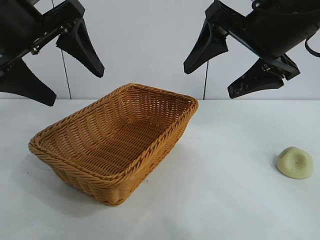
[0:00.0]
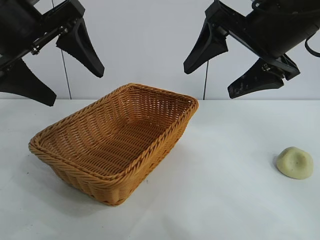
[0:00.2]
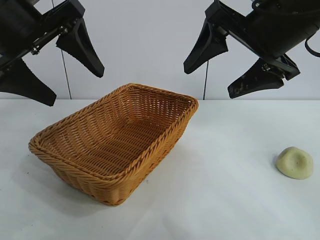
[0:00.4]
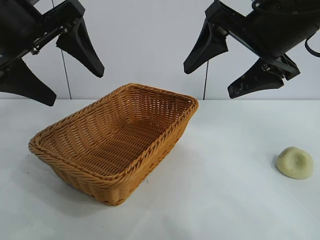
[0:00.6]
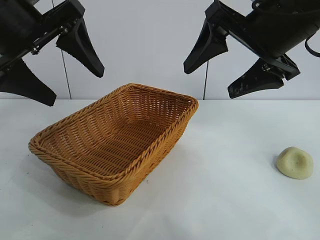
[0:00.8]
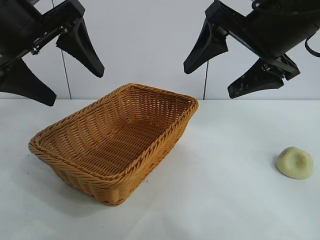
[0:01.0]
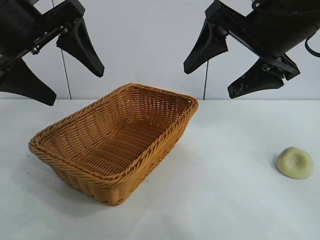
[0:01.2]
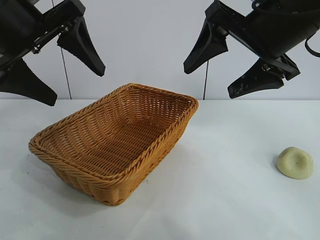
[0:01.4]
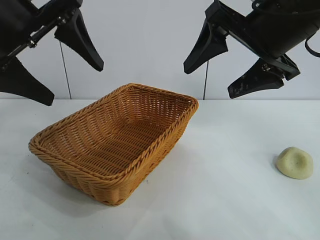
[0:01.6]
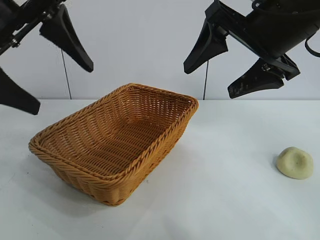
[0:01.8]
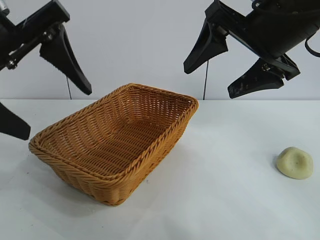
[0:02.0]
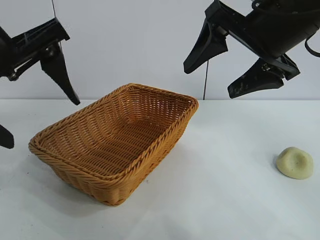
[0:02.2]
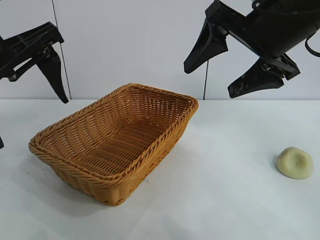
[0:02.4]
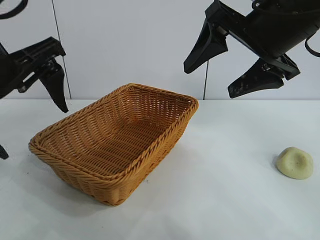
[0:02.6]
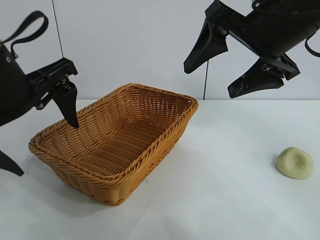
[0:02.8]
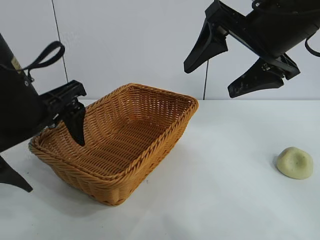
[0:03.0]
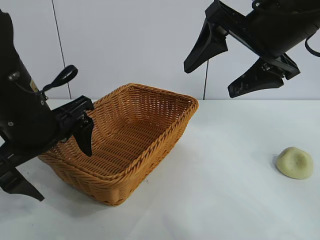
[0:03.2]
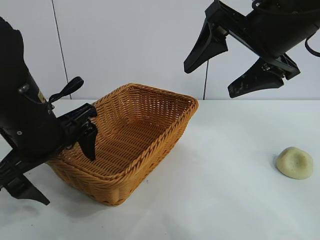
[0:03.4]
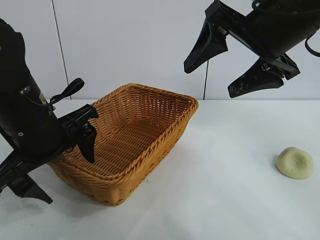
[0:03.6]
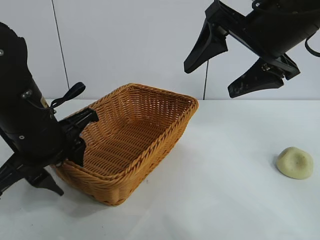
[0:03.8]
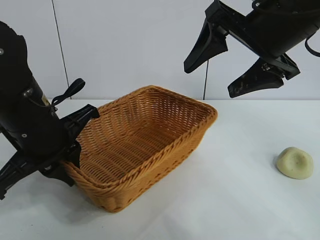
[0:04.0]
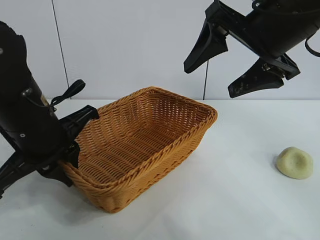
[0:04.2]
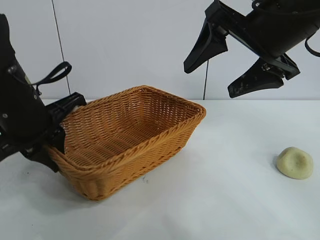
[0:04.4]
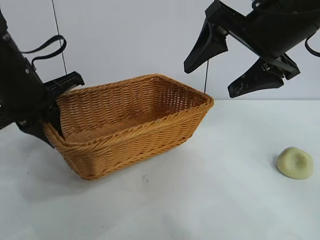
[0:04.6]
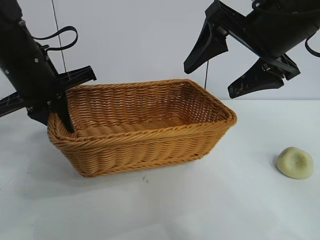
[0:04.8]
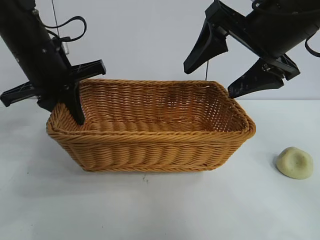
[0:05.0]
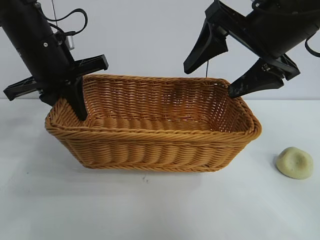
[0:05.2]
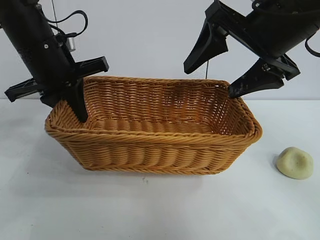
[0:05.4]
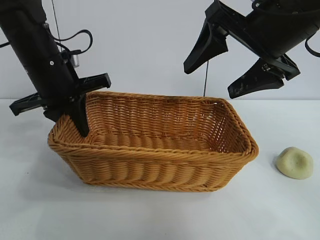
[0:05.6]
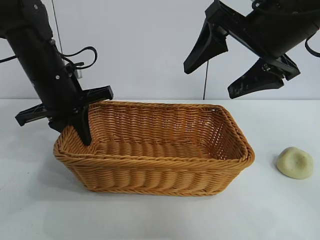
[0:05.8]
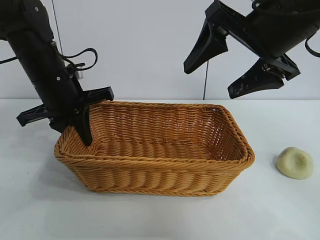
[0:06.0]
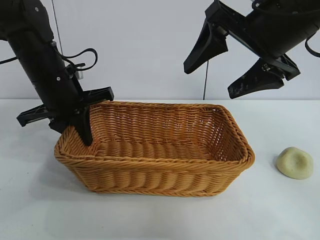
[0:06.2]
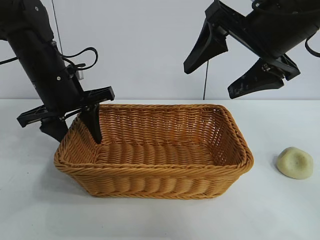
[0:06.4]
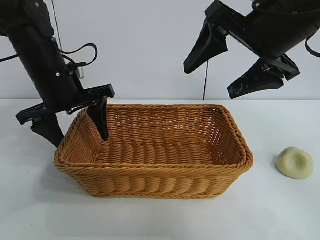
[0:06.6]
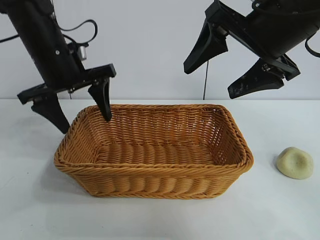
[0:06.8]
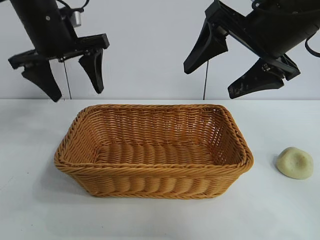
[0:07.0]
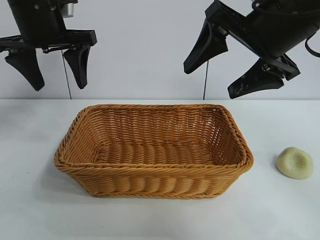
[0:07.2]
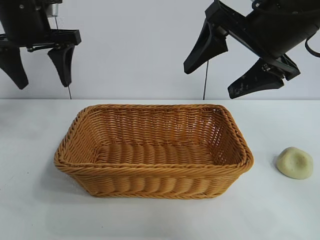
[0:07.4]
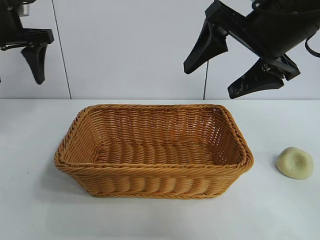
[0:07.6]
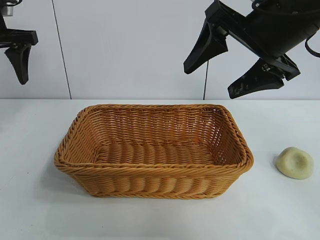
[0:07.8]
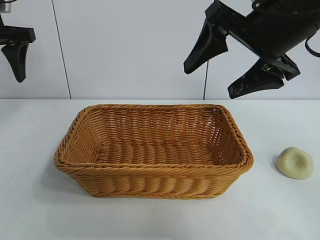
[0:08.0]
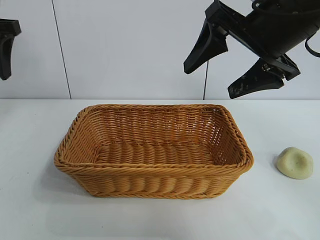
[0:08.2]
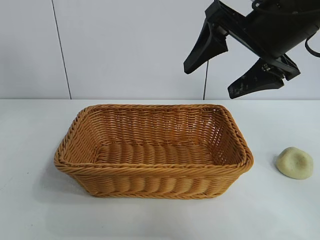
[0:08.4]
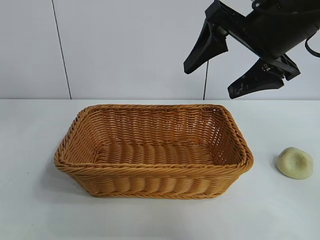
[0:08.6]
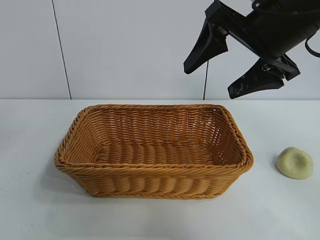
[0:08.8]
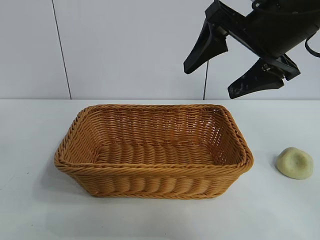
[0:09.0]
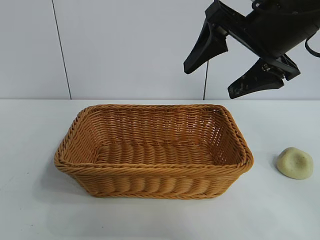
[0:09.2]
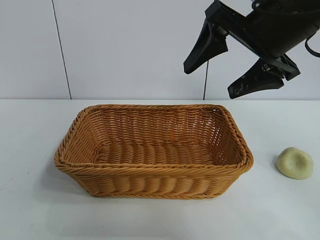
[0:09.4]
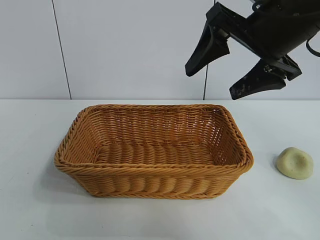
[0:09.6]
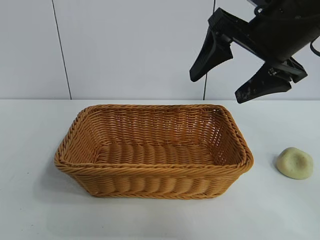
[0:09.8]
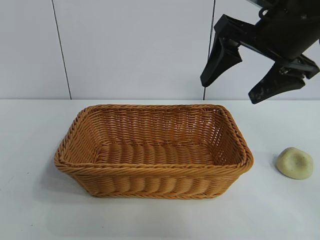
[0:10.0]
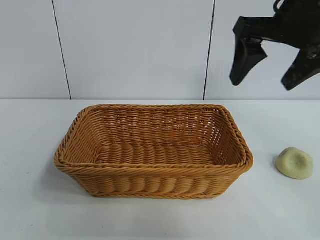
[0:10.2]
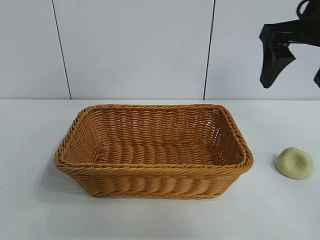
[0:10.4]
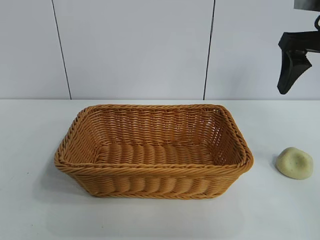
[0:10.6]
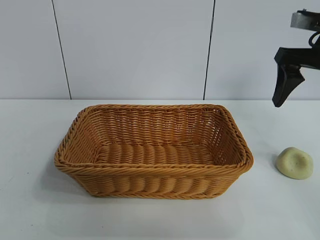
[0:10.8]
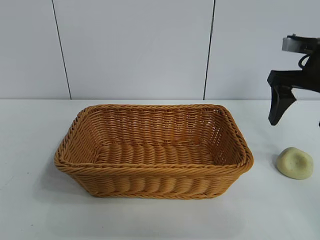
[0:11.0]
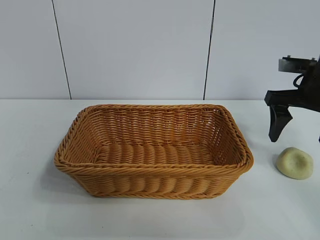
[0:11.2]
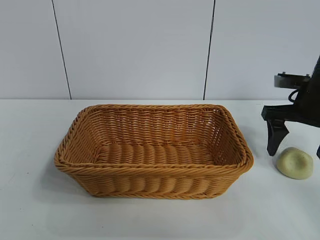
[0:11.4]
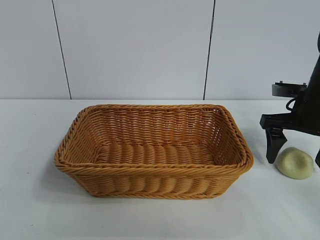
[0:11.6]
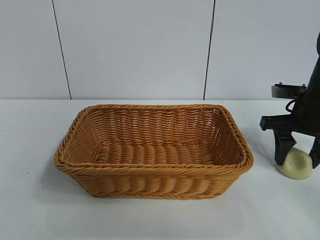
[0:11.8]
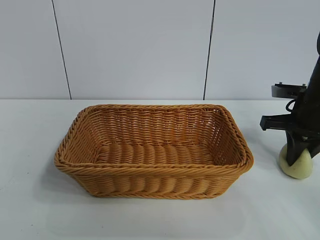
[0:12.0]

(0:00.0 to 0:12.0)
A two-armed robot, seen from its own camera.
Task of the whole recording: pick up the egg yolk pastry and put it into the basket.
Step, 0:01.4 - 0:04.2: Grasp the basket with left gripper.
Step, 0:04.4 - 0:06.6: Place the basket in the center of view with left gripper.

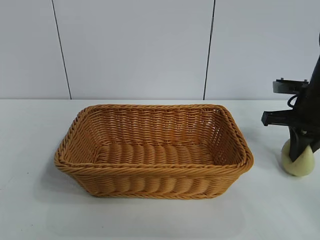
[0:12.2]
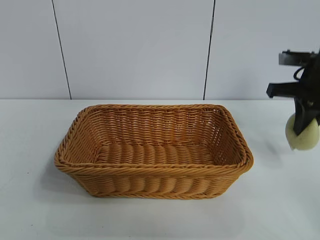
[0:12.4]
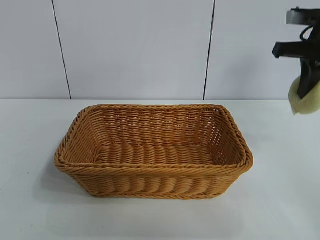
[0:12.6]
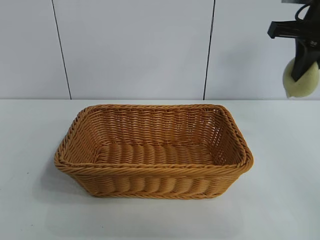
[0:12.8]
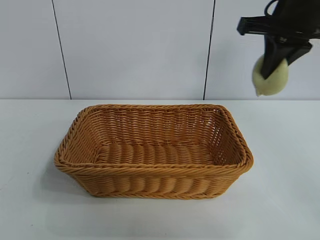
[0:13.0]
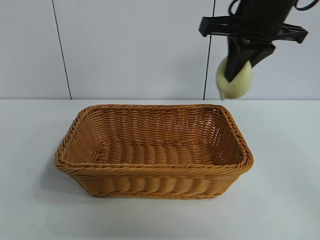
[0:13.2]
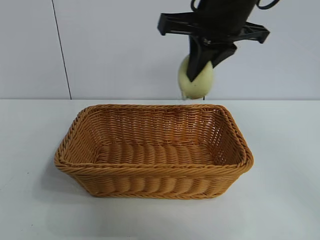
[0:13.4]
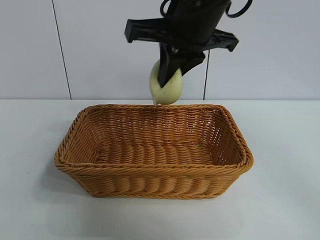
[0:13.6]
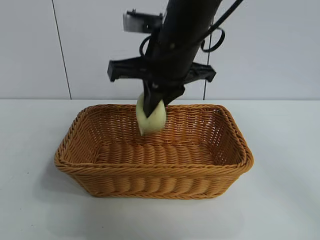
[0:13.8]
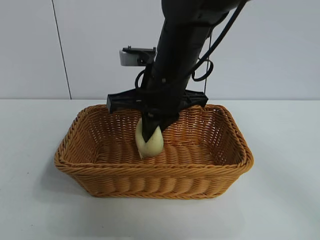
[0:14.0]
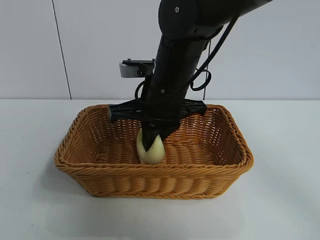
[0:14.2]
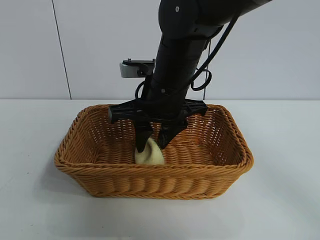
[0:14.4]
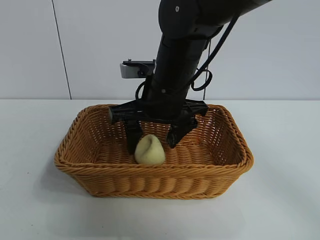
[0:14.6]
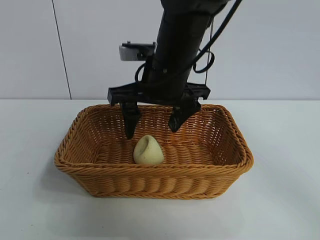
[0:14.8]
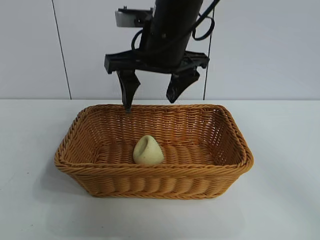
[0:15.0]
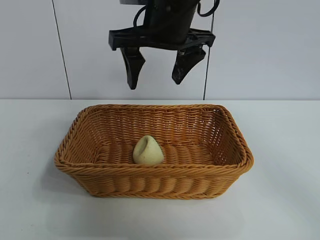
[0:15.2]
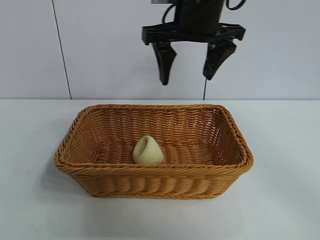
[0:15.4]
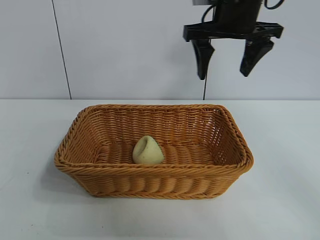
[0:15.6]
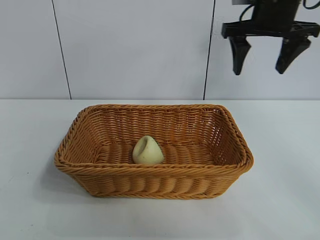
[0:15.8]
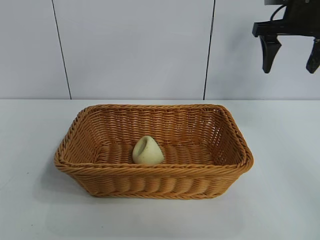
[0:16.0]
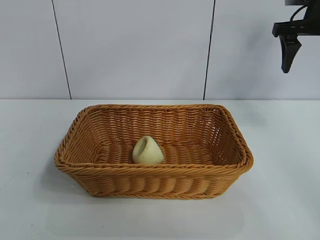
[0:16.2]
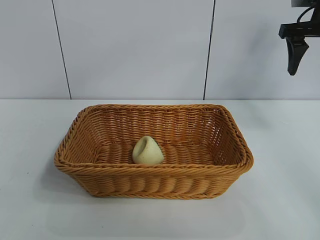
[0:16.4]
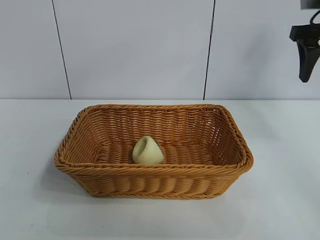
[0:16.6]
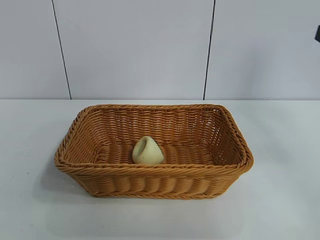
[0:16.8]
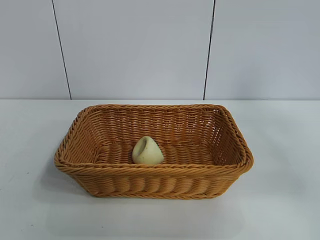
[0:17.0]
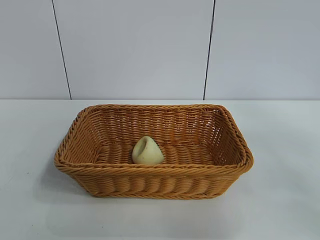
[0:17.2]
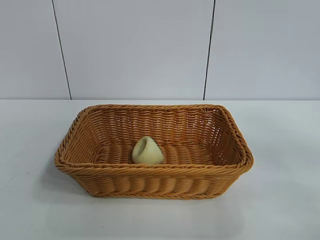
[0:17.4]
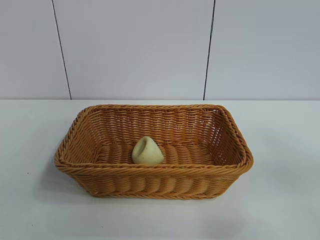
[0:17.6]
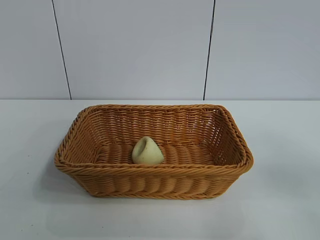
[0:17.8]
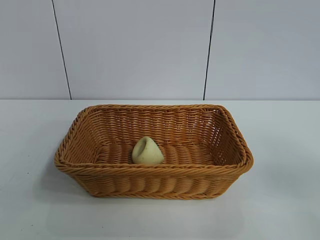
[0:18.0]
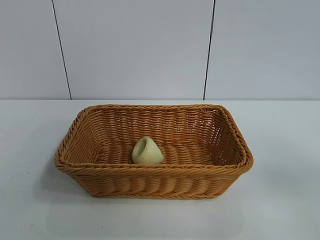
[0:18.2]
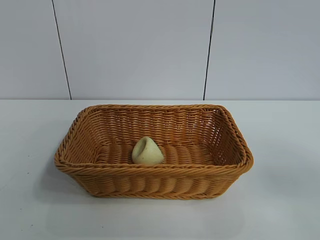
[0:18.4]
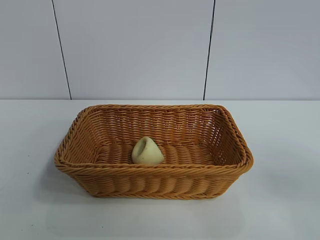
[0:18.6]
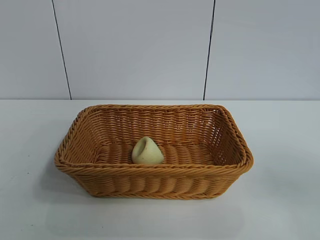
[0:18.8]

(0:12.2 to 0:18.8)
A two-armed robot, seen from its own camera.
Task of the whole recording: pick up the egg yolk pastry and put it into the basket.
Step, 0:12.2 - 0:14.6: Place the egg yolk pastry in the basket with right gripper.

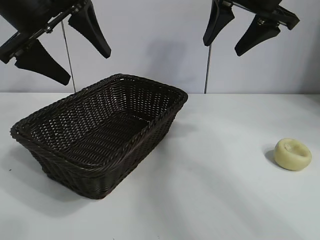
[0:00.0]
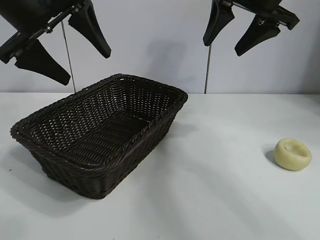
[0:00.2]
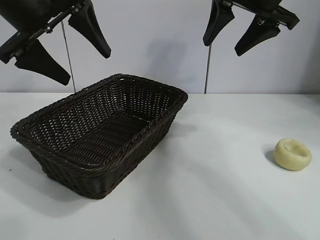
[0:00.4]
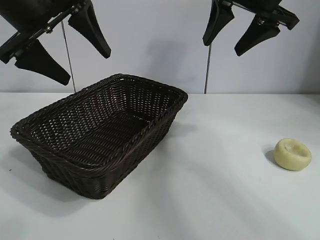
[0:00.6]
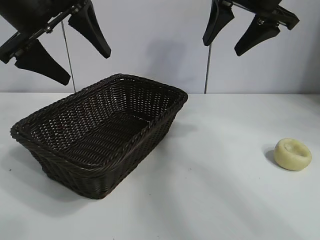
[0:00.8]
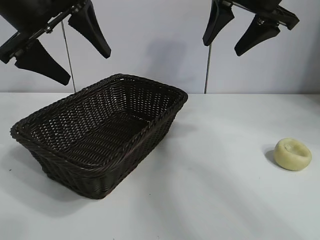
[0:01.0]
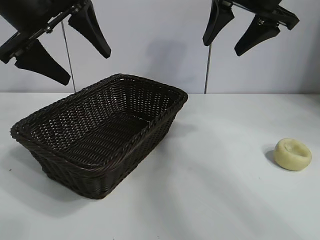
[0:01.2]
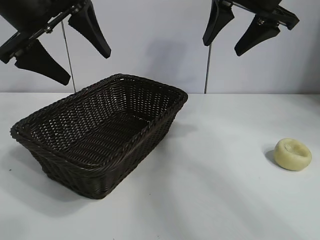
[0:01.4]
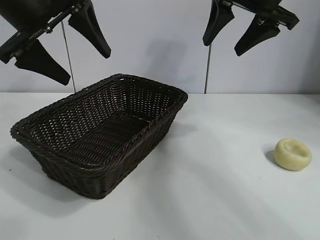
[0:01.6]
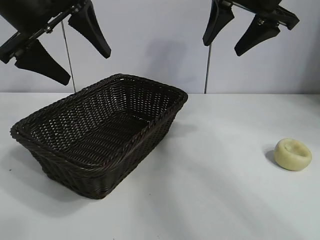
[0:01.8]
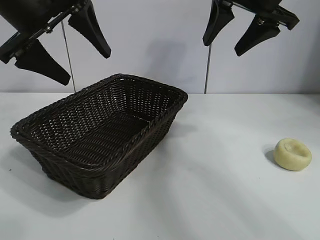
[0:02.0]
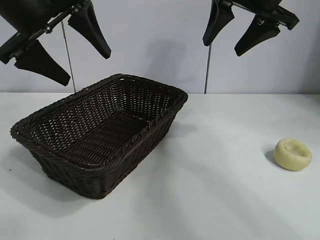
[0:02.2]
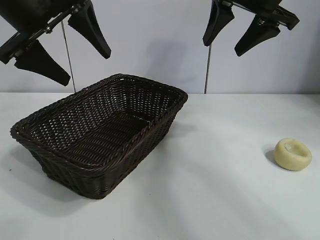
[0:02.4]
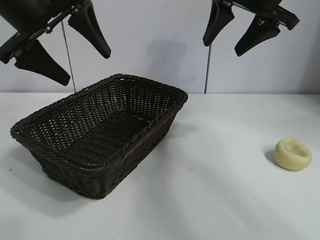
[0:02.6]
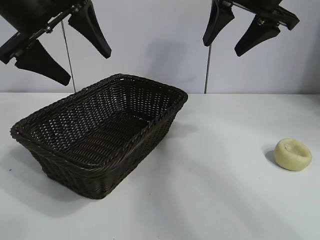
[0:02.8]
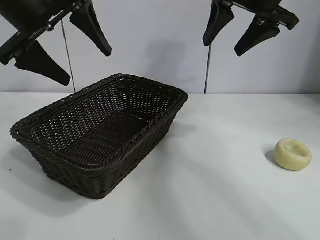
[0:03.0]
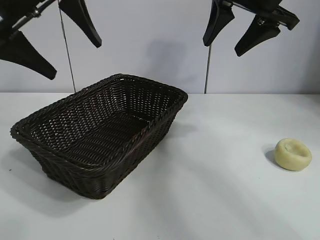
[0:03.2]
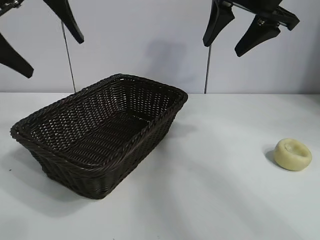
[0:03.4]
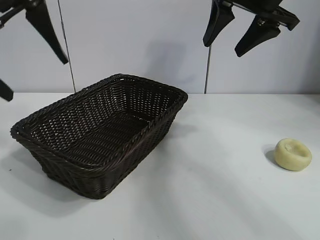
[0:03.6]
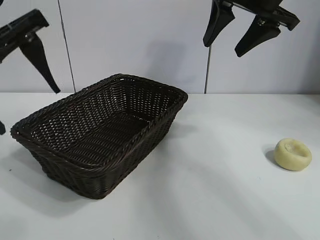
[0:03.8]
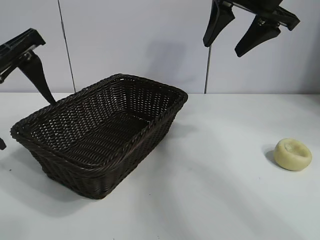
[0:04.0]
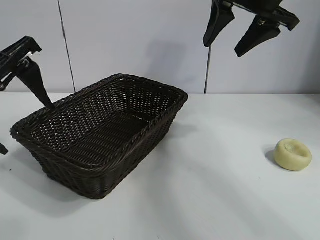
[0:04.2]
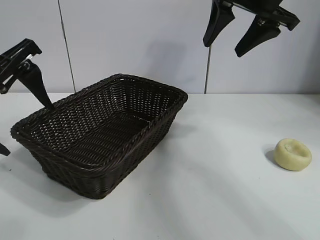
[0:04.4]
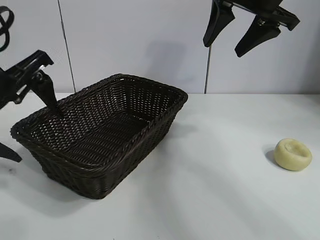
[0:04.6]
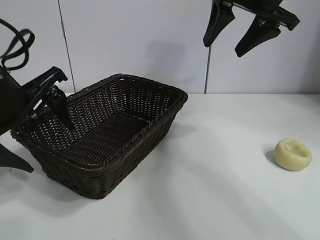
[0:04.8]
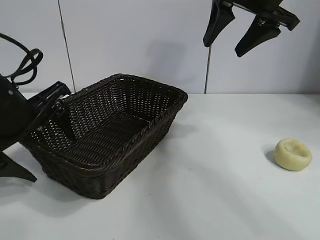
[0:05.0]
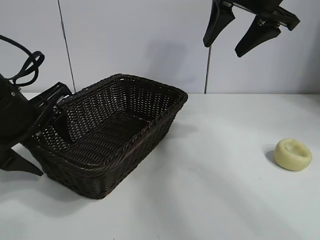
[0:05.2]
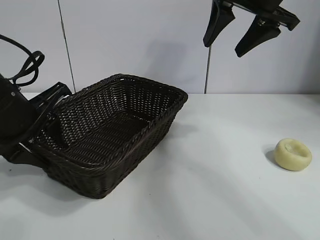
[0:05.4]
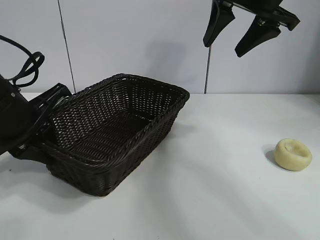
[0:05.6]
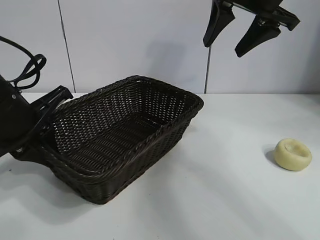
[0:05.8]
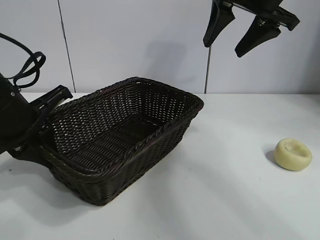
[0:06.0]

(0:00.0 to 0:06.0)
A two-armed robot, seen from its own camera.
Task of the whole recording: pick up the egg yolk pastry and put it into the basket.
Step, 0:02.2 - 0:05.6: Grasp the basket with left gripper.
